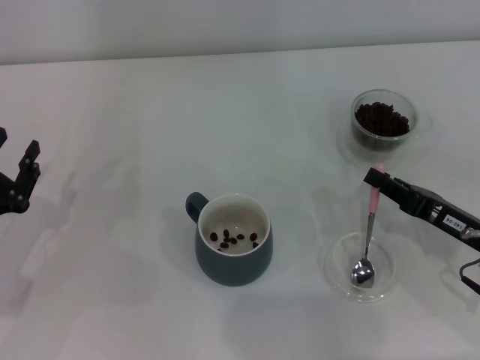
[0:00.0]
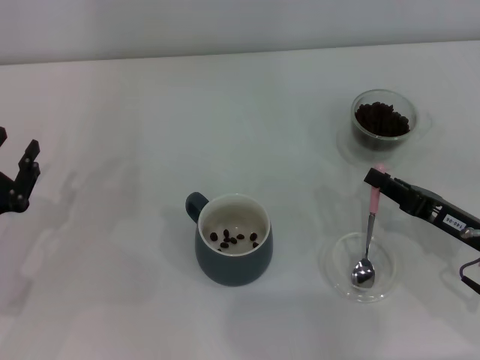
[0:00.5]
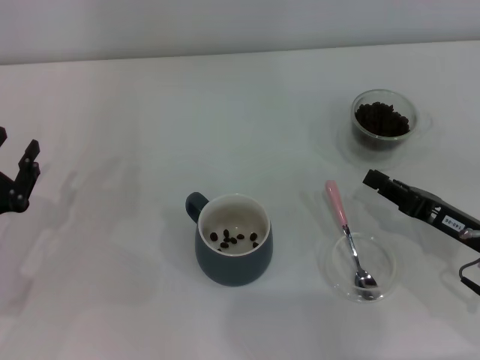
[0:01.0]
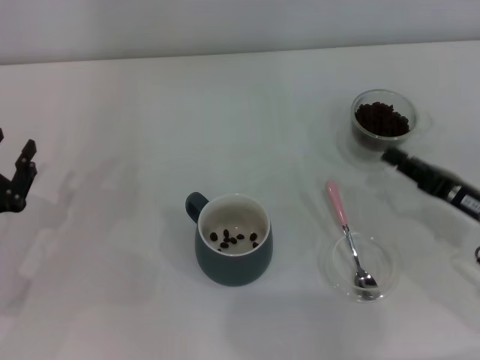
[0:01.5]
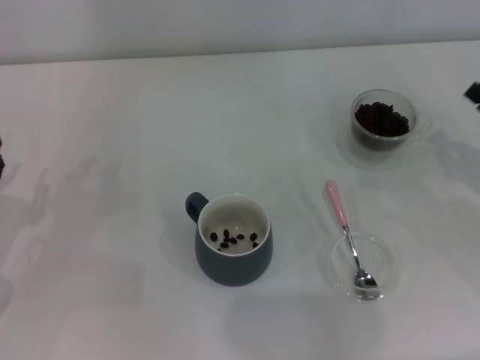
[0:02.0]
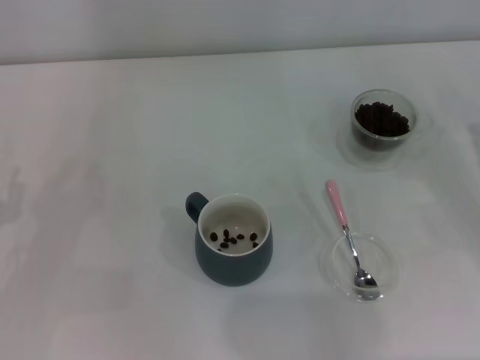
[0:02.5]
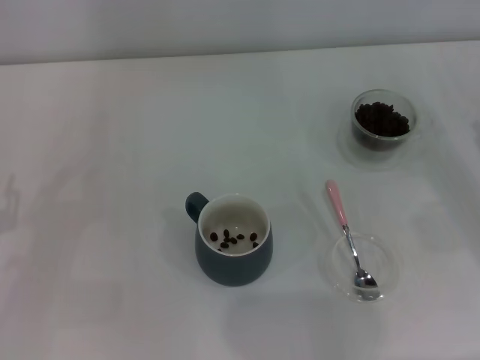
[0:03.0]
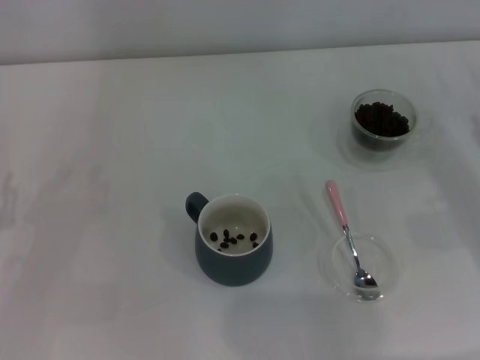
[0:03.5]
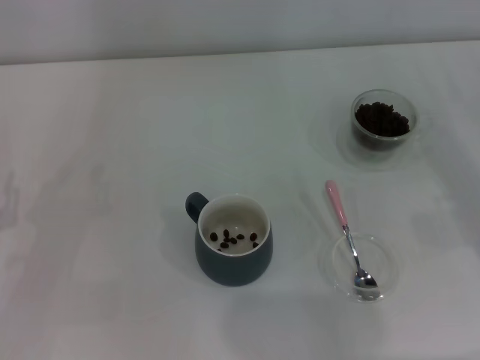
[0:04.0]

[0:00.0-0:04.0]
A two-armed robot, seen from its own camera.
Task of the whole recording: Use a pink spoon to take out the coffee beans from the glass and pour them into the gray cup.
0:00.0 to 0:02.0: The right gripper shifts roughly 5 cm to the right.

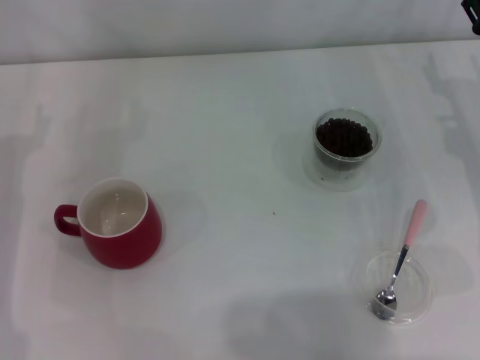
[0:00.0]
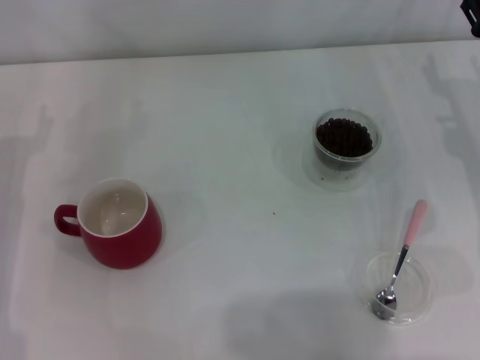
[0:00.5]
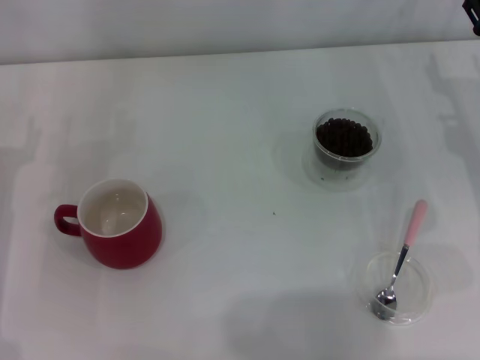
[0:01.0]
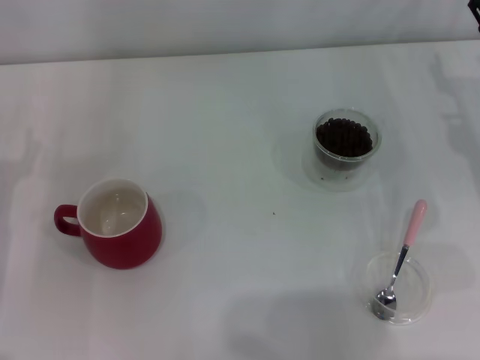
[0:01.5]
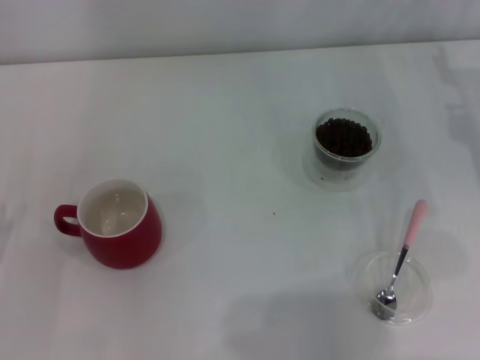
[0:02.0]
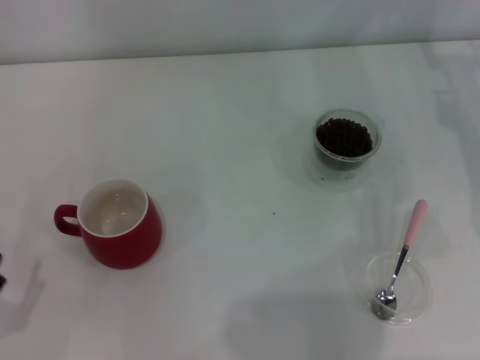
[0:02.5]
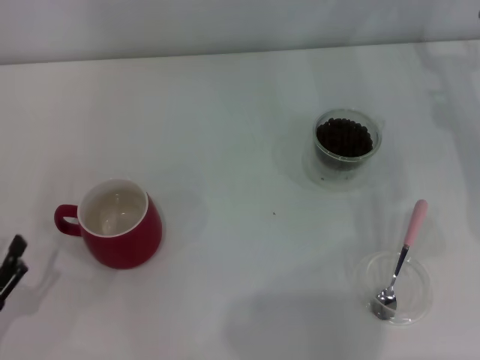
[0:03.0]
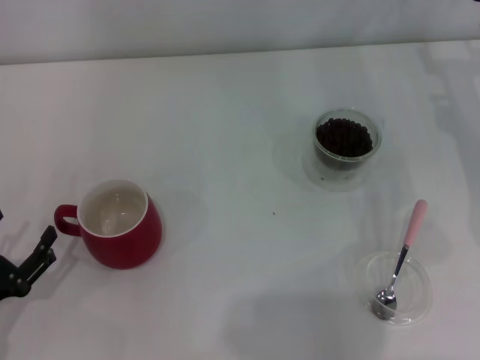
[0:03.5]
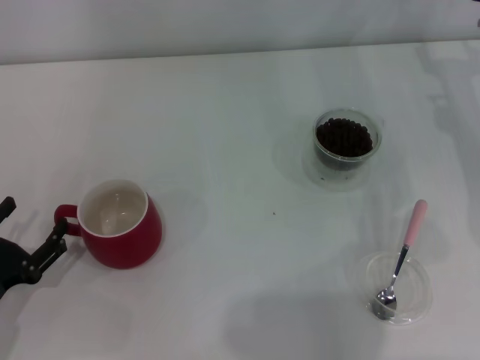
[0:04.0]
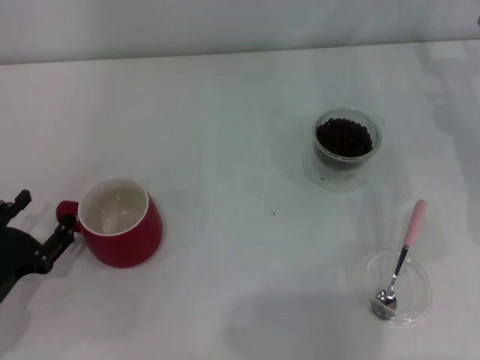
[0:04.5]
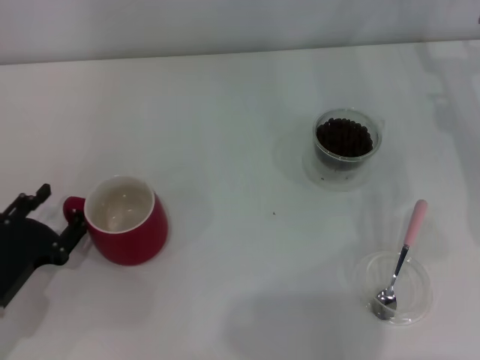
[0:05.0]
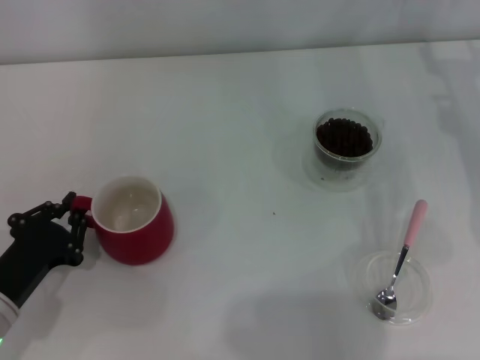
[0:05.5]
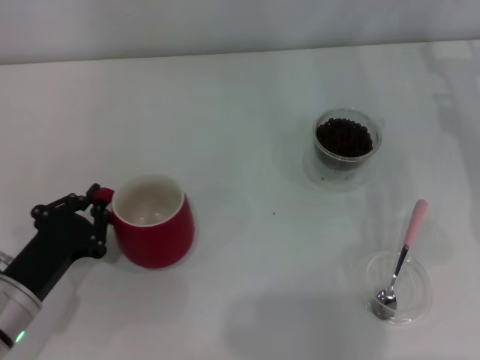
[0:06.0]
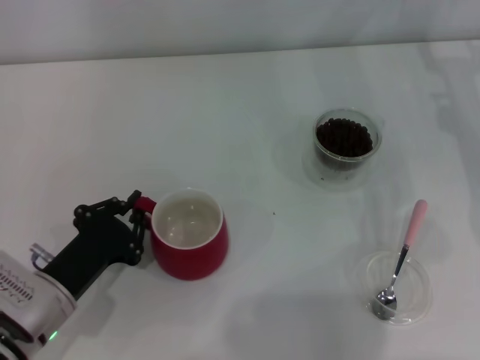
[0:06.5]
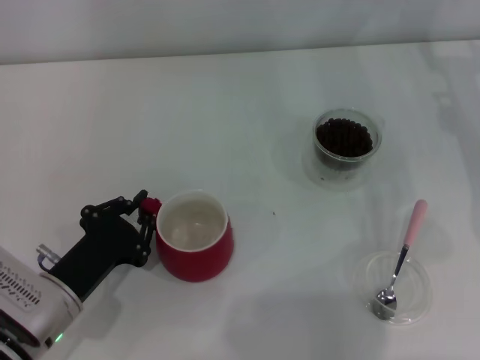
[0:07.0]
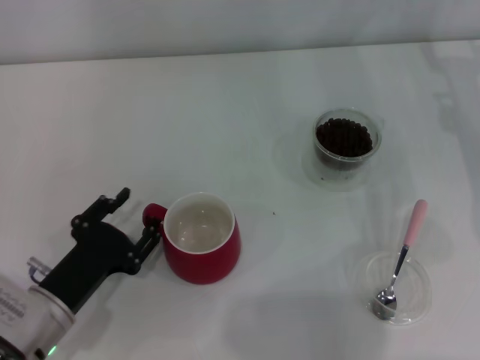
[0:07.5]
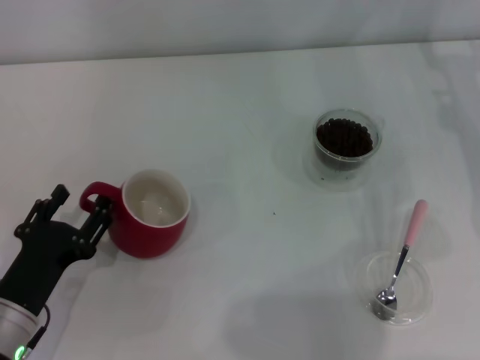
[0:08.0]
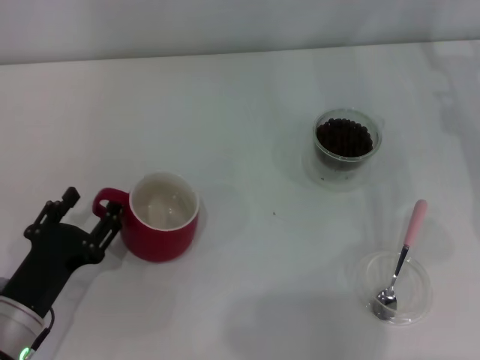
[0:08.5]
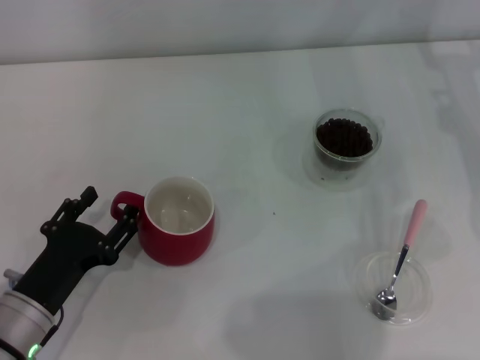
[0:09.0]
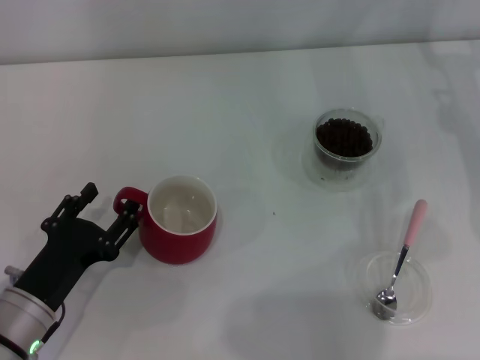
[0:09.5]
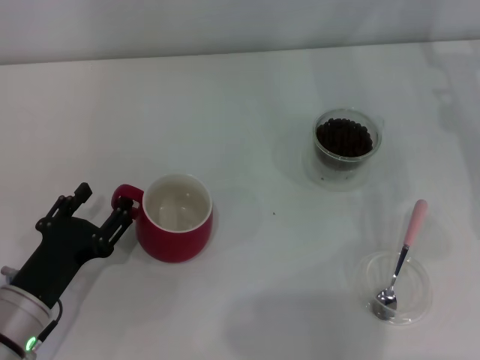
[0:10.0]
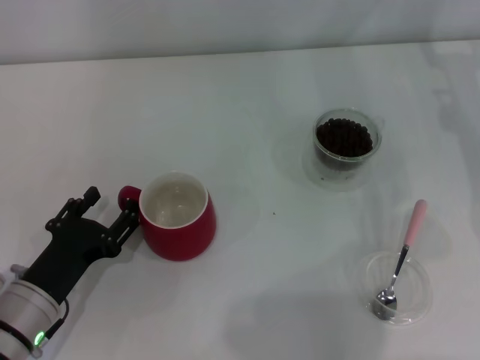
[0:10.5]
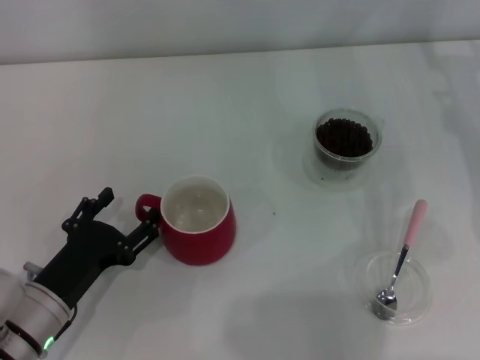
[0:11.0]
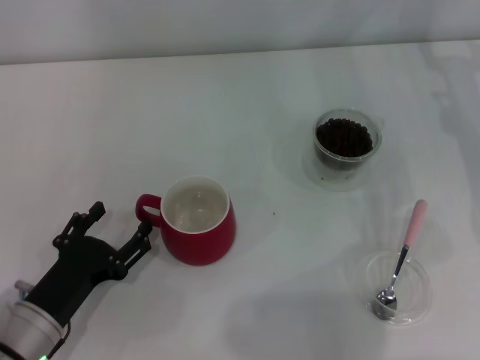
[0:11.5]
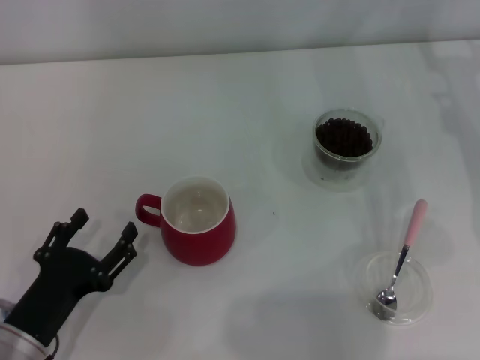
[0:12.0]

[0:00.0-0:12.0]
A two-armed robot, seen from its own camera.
Task of the whole recording: Use a pink spoon to take out the coffee beans from the glass and pour them into the red cup.
Step, 0:00.0 to 0:11.5: Move the cup to the center of view with the left gripper.
0:02.0 to 0:04.0: The left gripper travels backward and back again, approximately 5 cm each way.
0:04.0 to 0:06.0: The left gripper heads to the right, covering some 5 cm, and closes up.
0:06.0 to 0:08.0: The left gripper opens its fingers.
0:08.0 to 0:12.0: There are only small adjustments of the grippers.

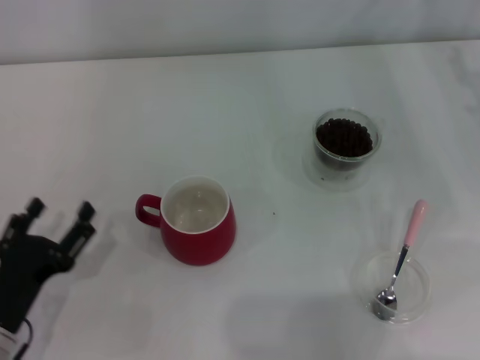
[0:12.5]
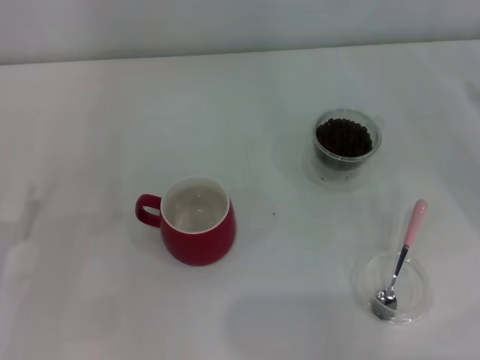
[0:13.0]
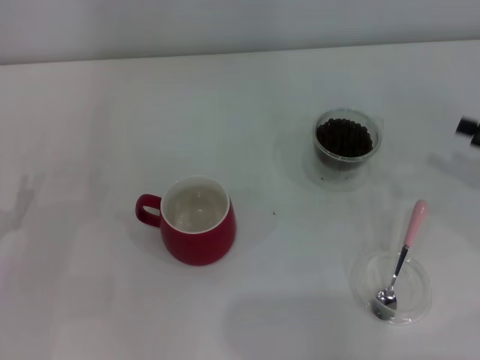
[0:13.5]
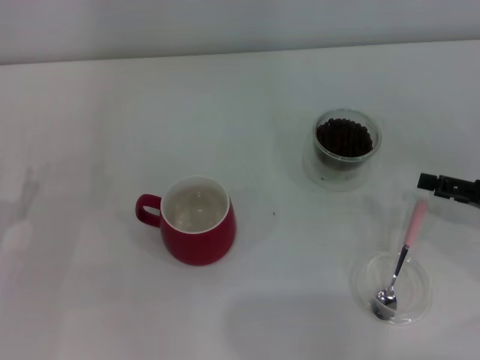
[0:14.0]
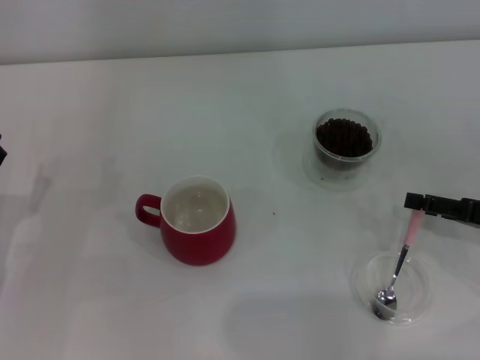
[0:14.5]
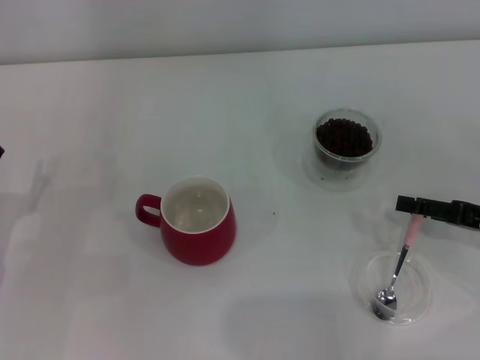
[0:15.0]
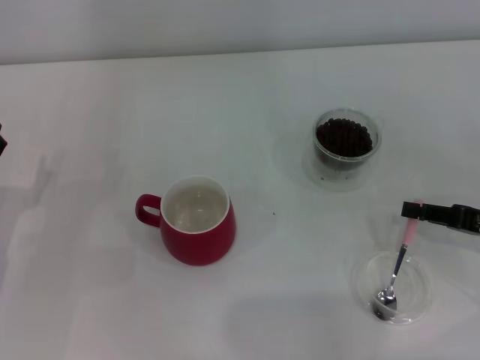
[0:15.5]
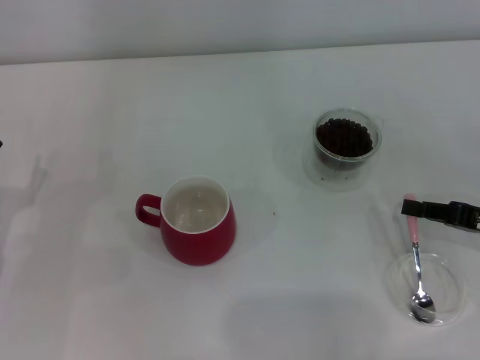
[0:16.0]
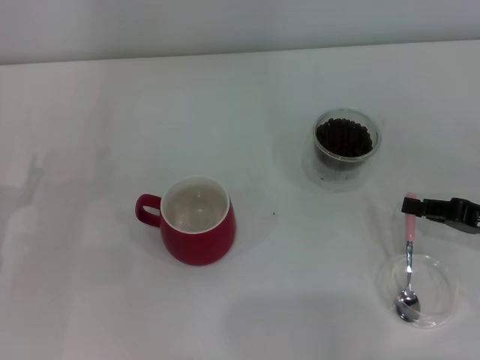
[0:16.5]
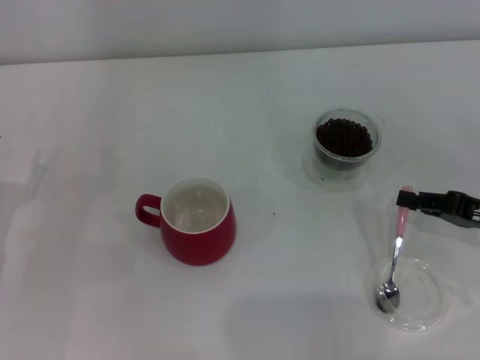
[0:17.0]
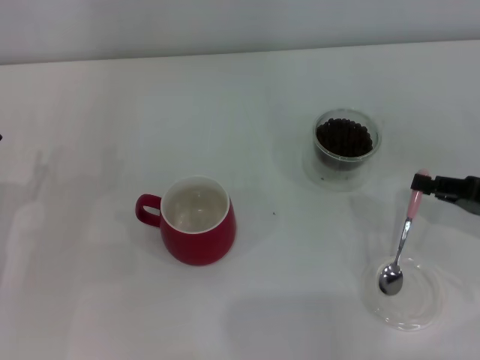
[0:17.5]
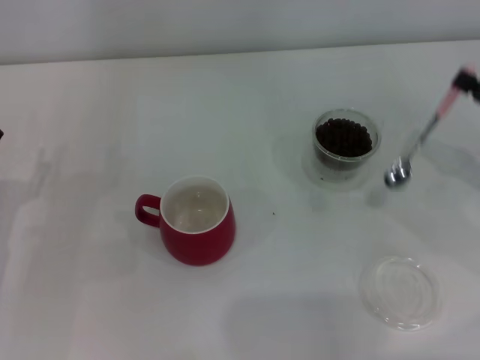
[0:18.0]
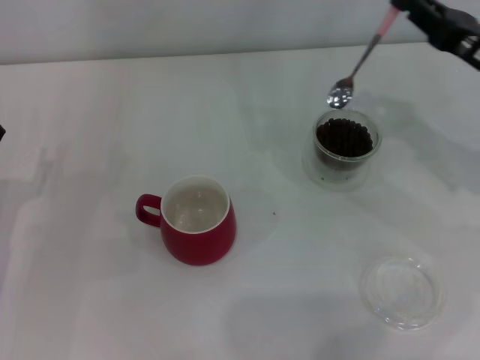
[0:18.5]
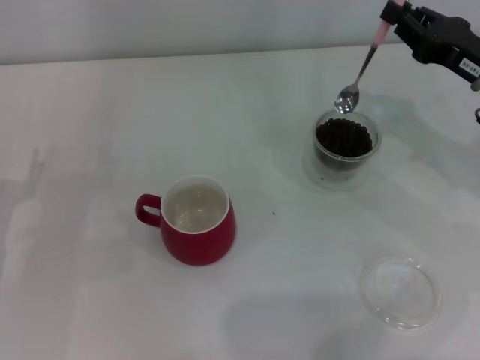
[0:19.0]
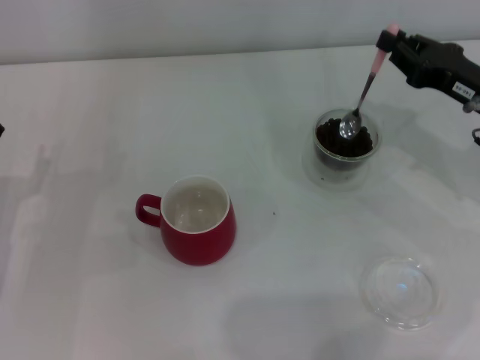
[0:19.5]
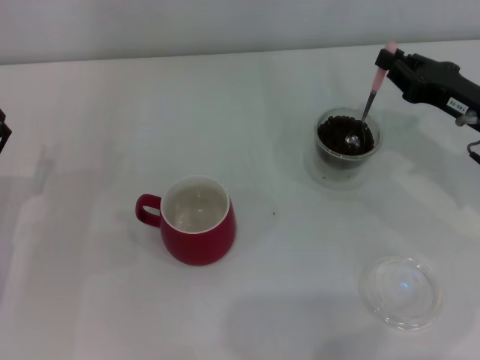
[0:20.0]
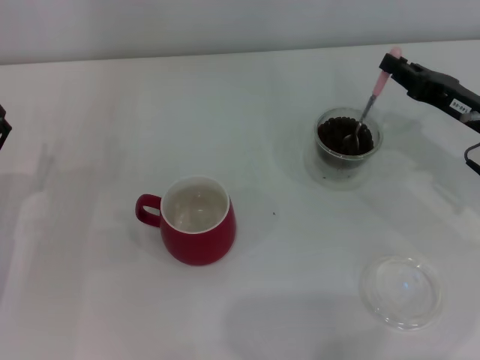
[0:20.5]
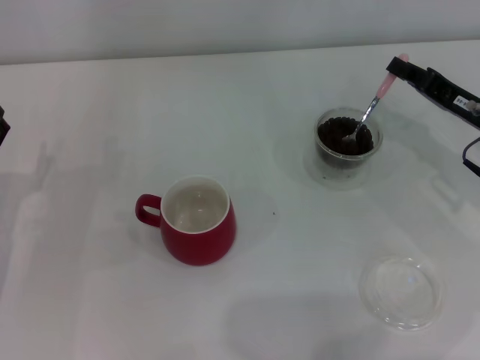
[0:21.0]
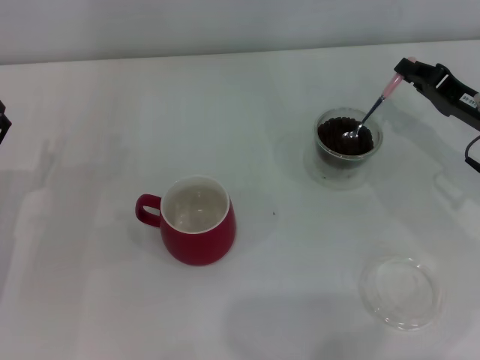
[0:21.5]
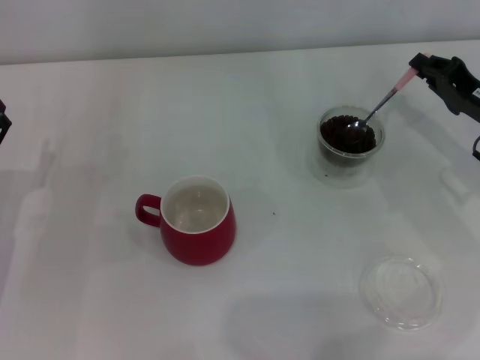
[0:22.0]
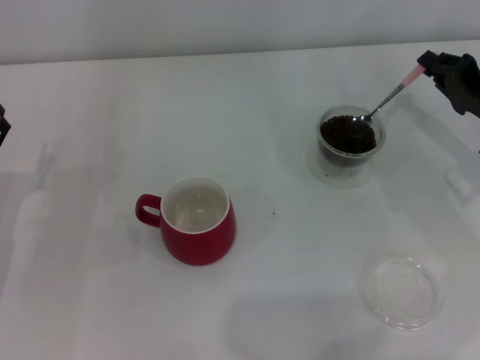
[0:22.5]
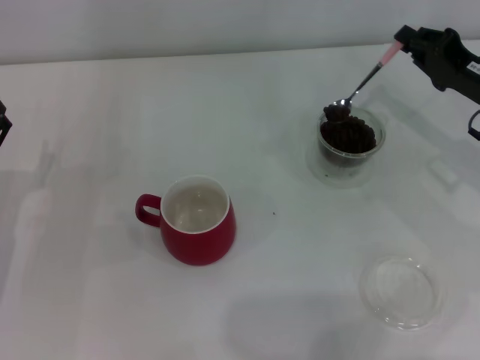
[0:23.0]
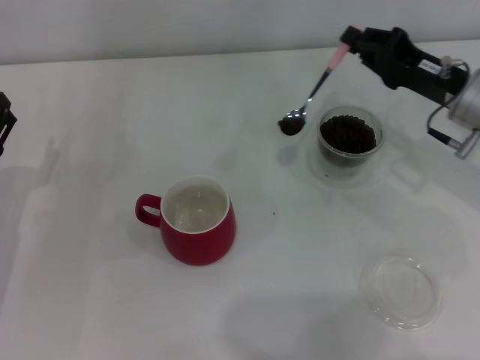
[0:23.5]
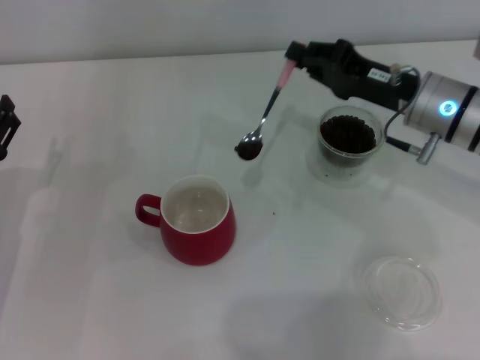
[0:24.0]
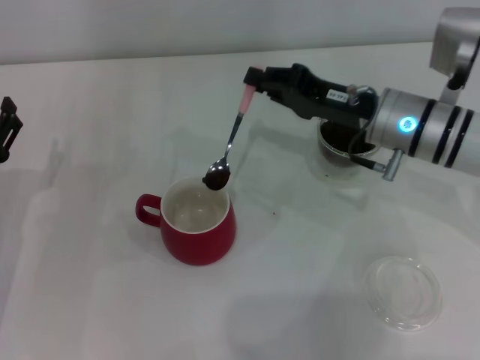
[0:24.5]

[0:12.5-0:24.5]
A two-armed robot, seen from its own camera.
Task of the whole recording: Use a pink spoon to take out the coffee beans from the glass and pour them into the red cup.
Step, 0:12.5 to 0:17.5: Pick up the spoon with the right gripper.
0:12.5 to 0:14.5: The right gripper moves backward, approximately 10 cm, while the left gripper shifts about 5 cm forward.
0:14.5 to 0:16.5: The right gripper closes up.
0:16.5 to 0:18.5: The right gripper goes some 10 cm forward and upward.
0:18.5 to 0:20.5: The grippers stay close to where they were, moving slightly.
0:22.5 to 0:24.5: The right gripper travels to the left by roughly 15 cm.
